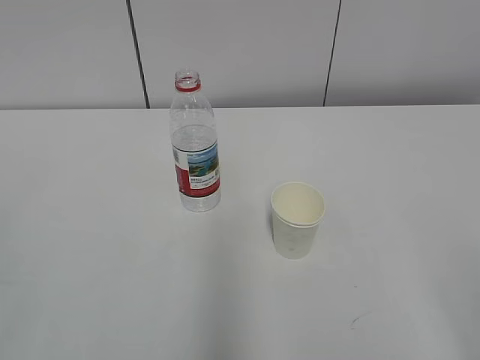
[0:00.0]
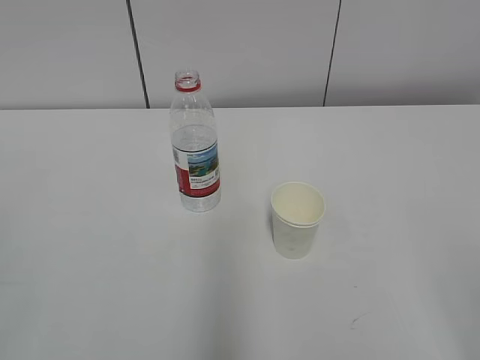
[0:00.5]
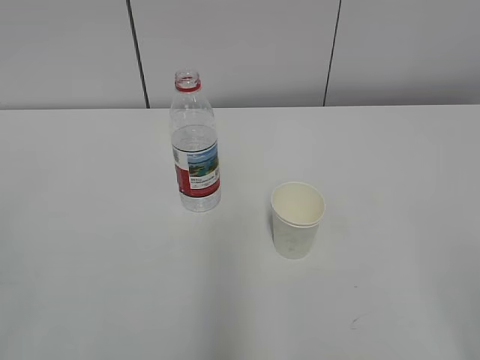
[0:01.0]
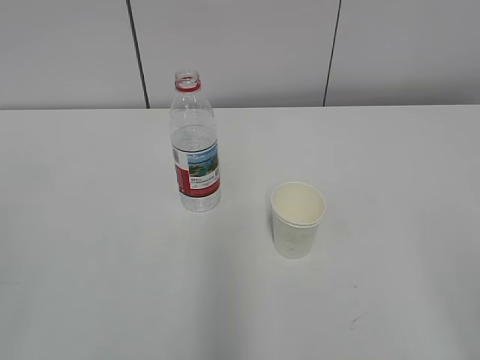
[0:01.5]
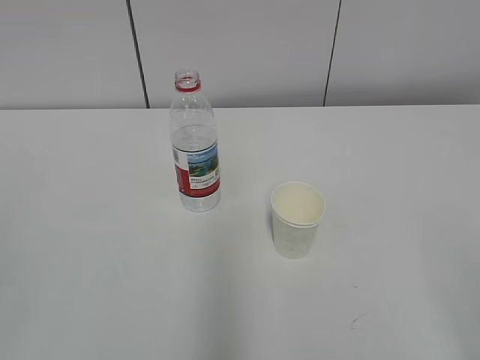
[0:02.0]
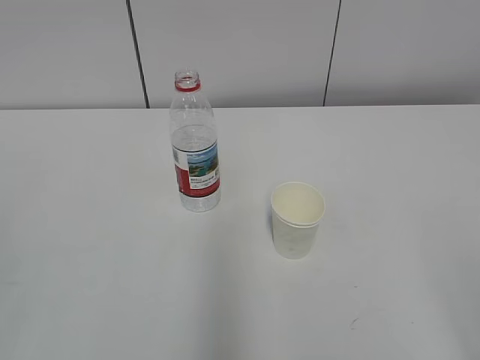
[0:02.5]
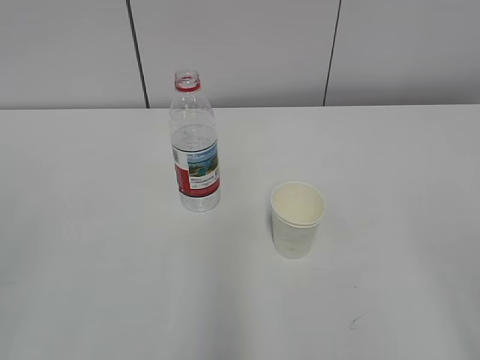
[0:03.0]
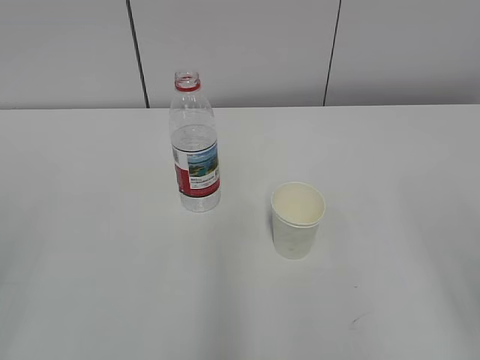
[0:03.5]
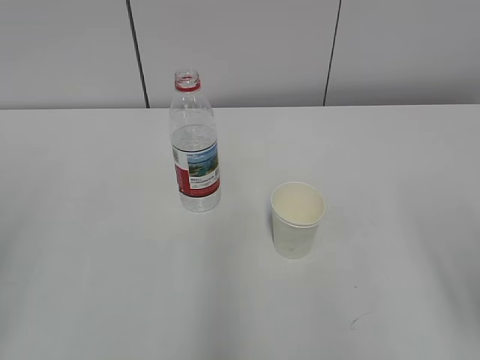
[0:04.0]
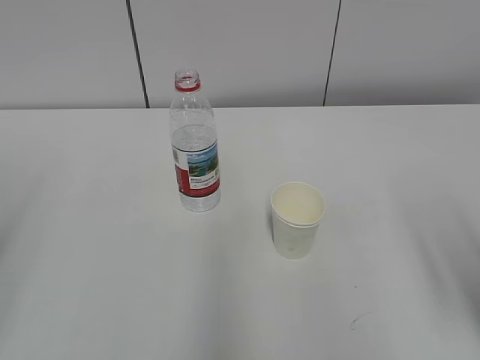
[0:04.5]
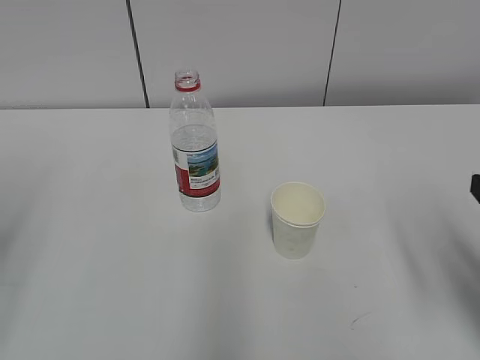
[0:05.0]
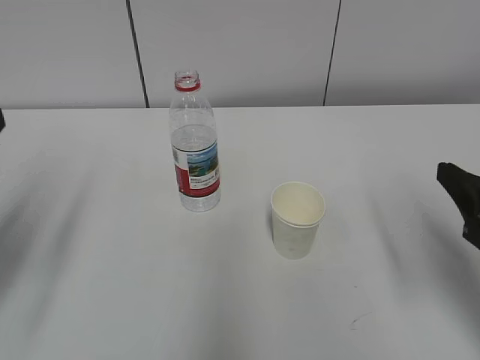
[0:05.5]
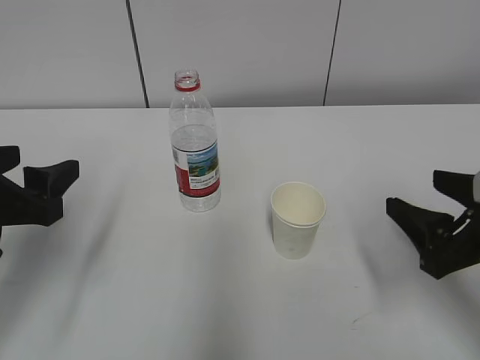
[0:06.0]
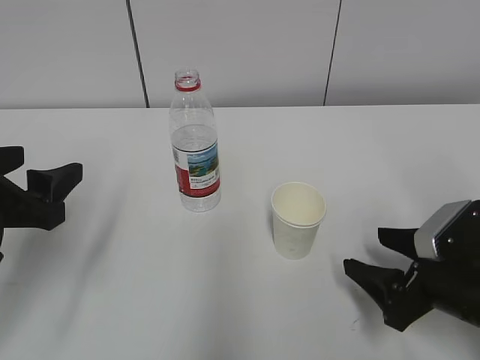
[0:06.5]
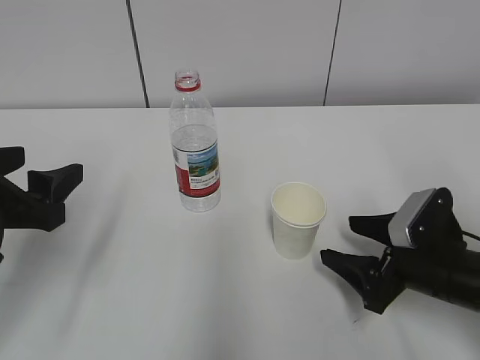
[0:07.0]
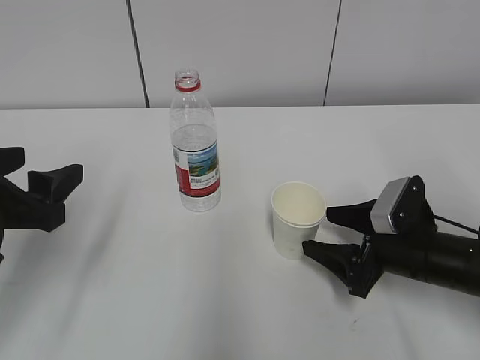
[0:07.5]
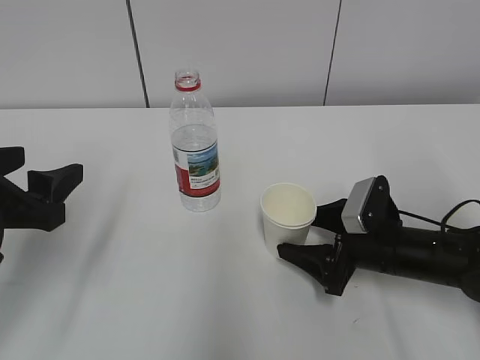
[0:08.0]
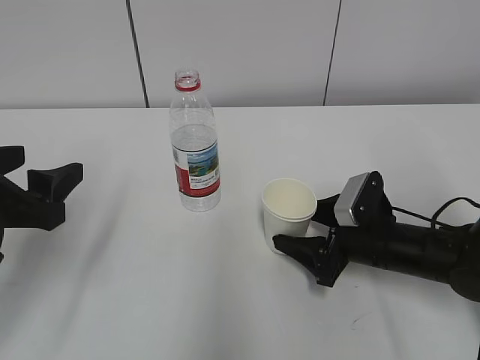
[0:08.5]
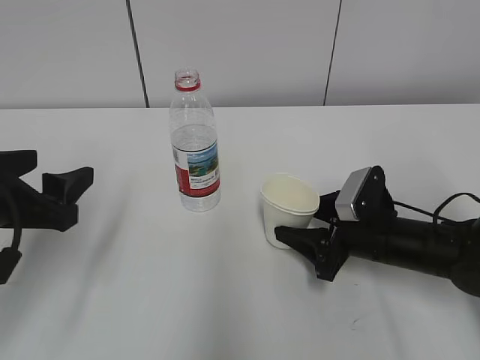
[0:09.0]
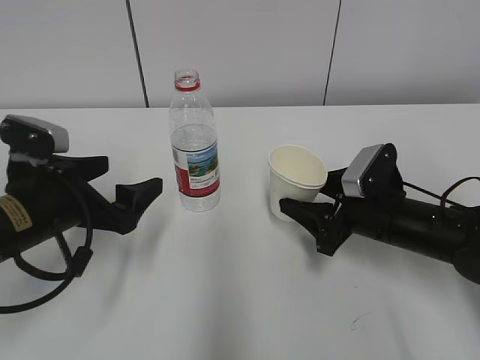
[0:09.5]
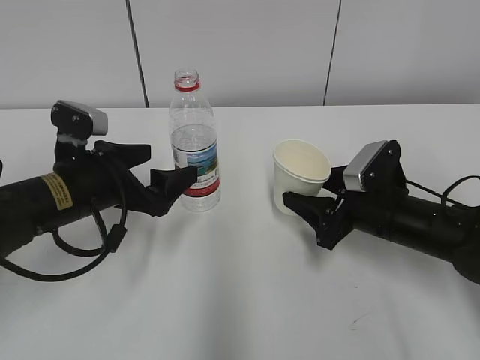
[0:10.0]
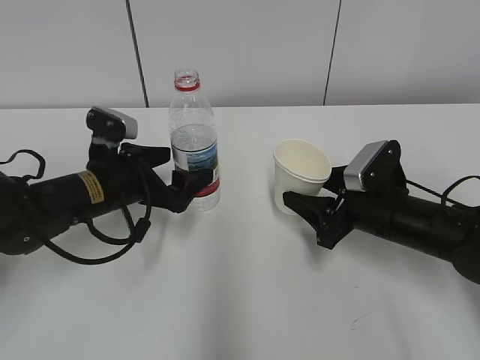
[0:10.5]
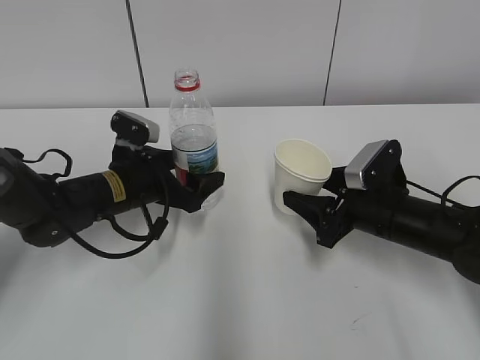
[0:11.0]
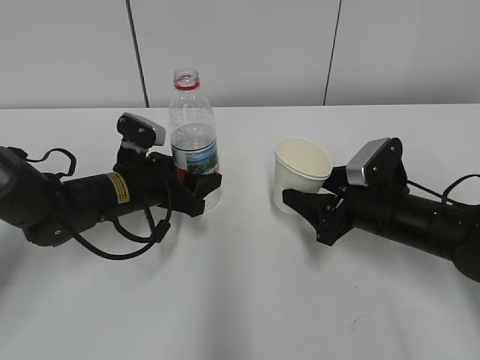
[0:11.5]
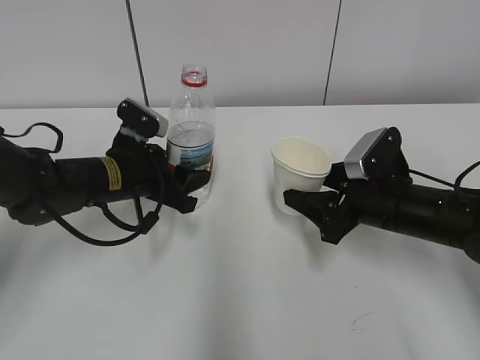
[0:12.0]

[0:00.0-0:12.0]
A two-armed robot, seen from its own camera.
Step, 0:00.0 to 0:07.0: Grab the paper cup with the right hand.
Step, 0:07.5 to 0:09.5: Grab the water bottle with the left hand.
0:04.0 to 0:06.0: The left gripper heads forward, downward and to the right, covering approximately 15 cm. Meanwhile the right gripper moves forward and downward, some 15 cm.
0:06.0 to 0:08.0: The right gripper goes approximately 15 cm downward, forward and to the left.
0:08.0 to 0:10.0: The left gripper travels forward, to the right and downward by roughly 15 cm, and opens; the right gripper closes up.
0:10.0 to 0:12.0: The left gripper shifts about 5 cm forward, and closes.

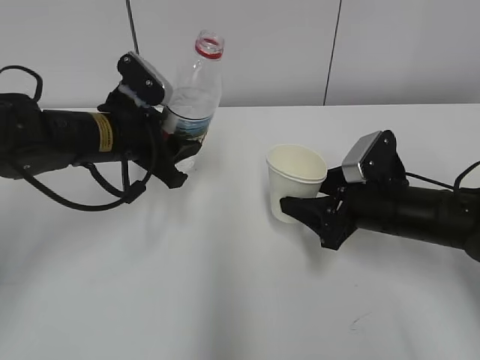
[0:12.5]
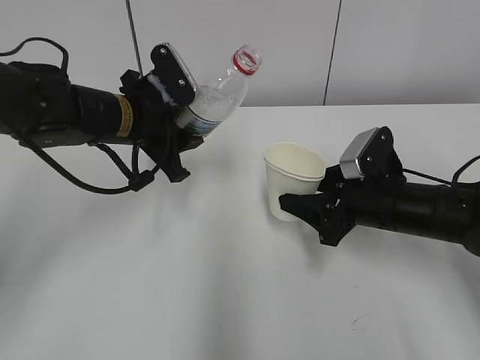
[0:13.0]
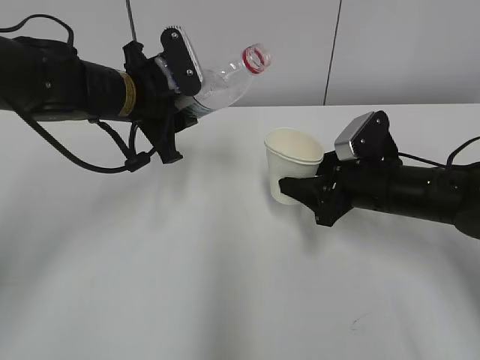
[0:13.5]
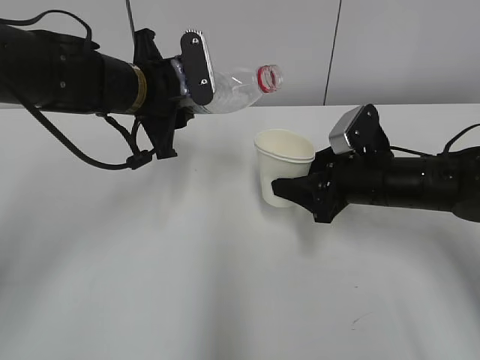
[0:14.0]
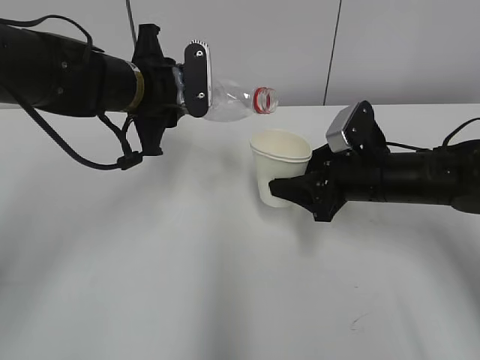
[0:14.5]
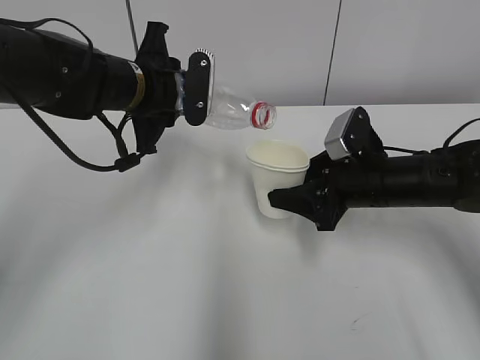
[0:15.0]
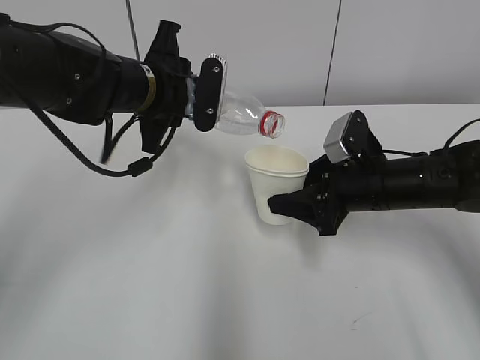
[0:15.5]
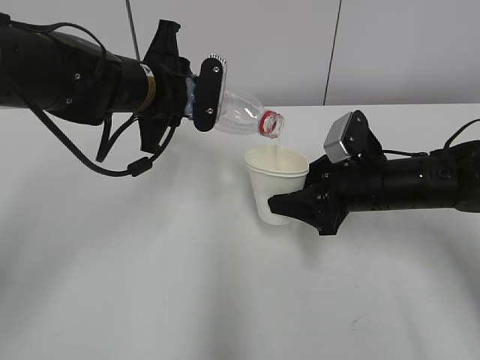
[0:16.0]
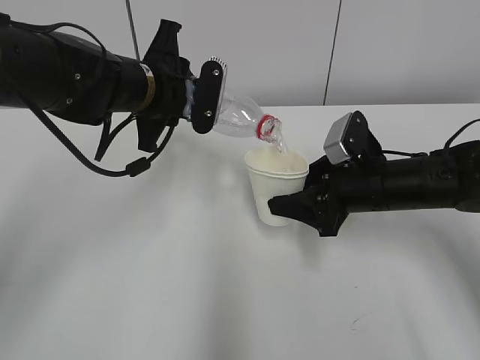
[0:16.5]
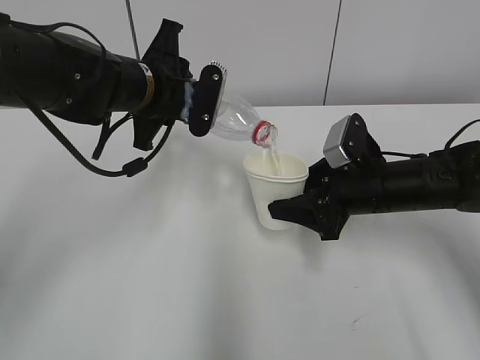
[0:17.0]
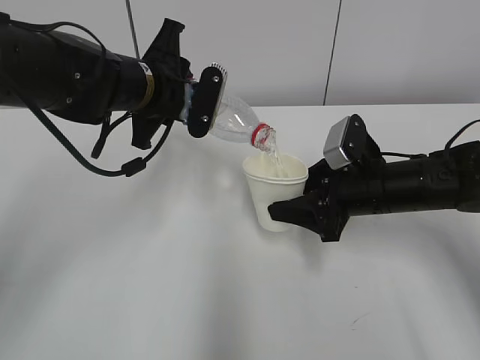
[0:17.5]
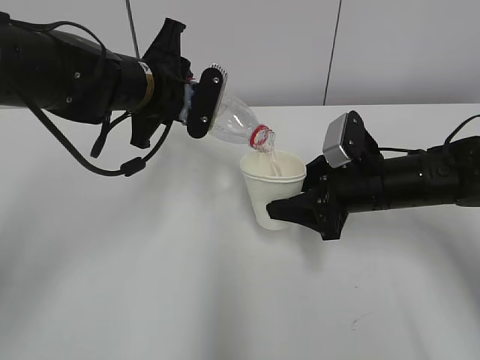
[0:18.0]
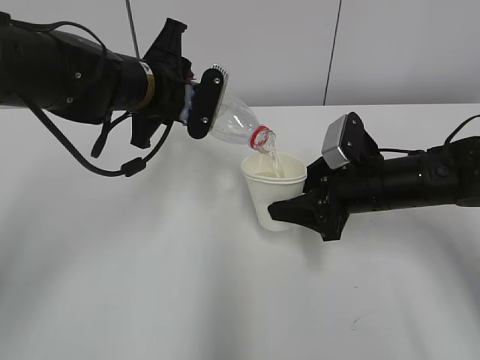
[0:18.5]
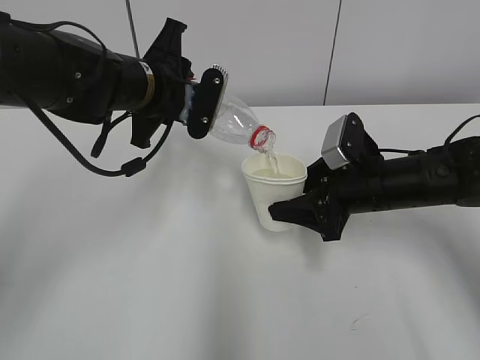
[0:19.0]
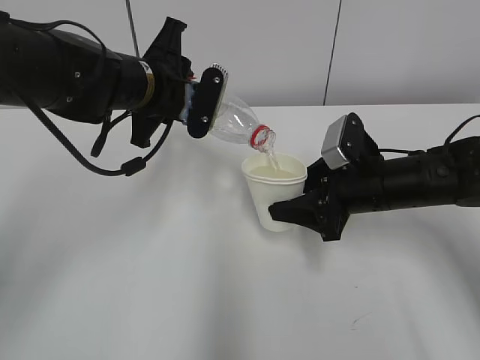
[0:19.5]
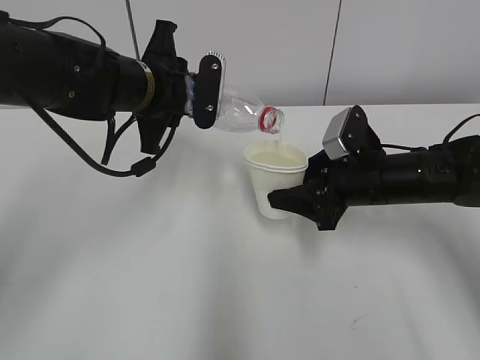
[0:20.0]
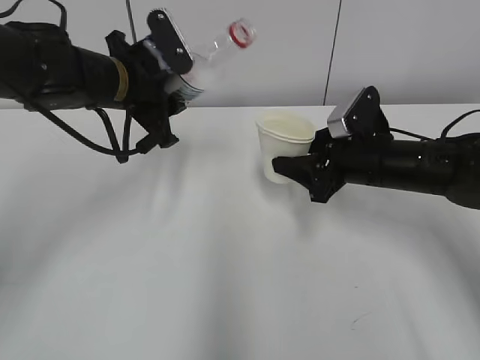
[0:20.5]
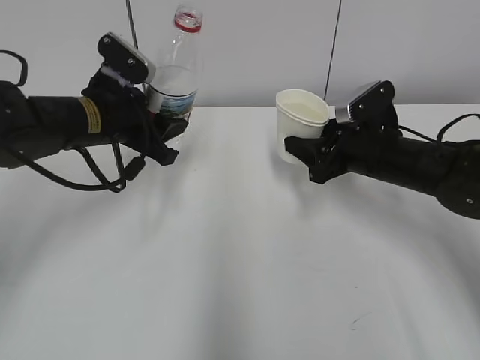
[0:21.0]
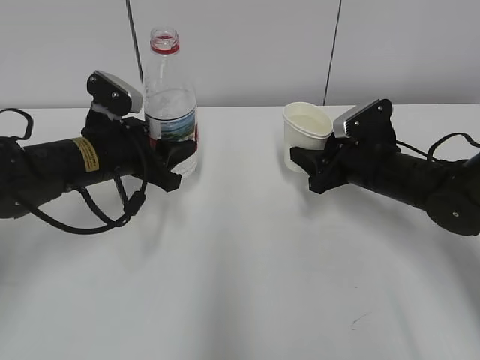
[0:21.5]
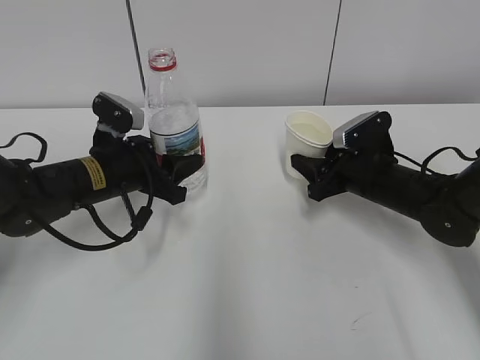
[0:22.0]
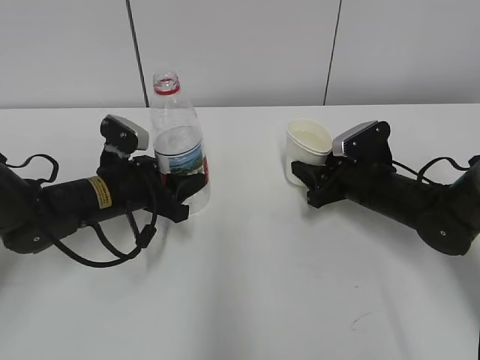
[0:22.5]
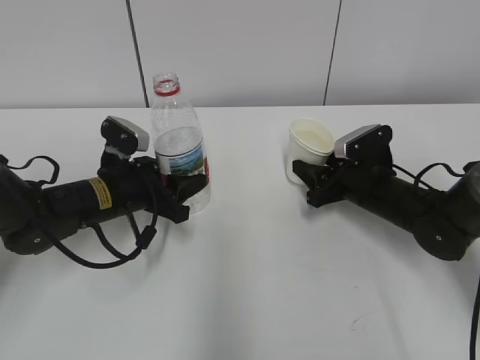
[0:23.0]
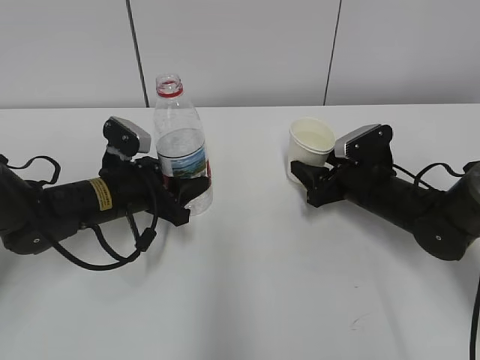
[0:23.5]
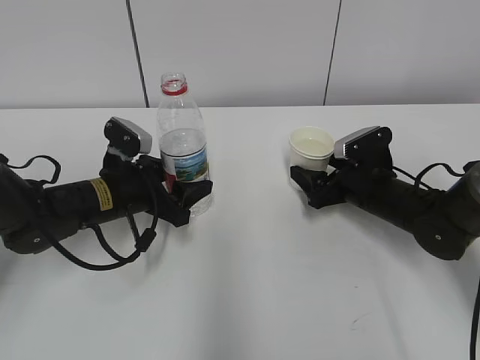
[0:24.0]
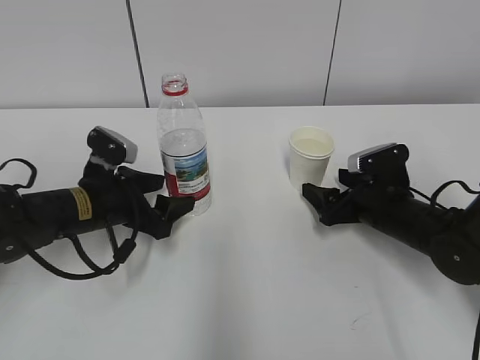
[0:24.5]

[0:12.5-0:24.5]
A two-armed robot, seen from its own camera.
Step, 0:13.0 to 0:16.5: Fill water with the right hand.
Step, 0:13.0 to 0:16.5: Pour water with the left hand.
Step, 0:17.0 to 0:17.5: Collect water with the left hand.
Step, 0:18.0 to 0:19.5: Place the paper cup with the right hand.
Step, 0:18.0 to 0:19.5: Place the water bottle with the left hand.
0:12.5 to 0:14.5: The left gripper goes some 5 cm upward.
0:14.5 to 0:16.5: The grippers stay close to where they were, moving slightly.
0:16.5 to 0:18.5: There are only small adjustments of the grippers.
0:20.5 to 0:22.5: The right gripper travels downward by about 5 cm; the left gripper shifts about 15 cm downward.
0:22.5 to 0:24.5: The left gripper opens up, while the right gripper opens.

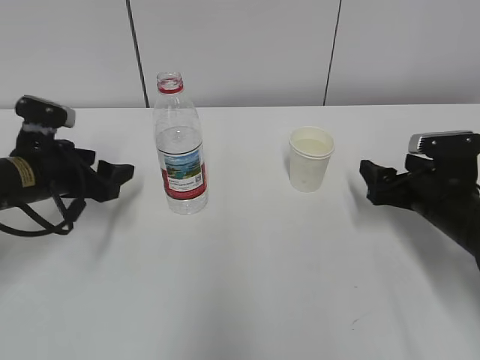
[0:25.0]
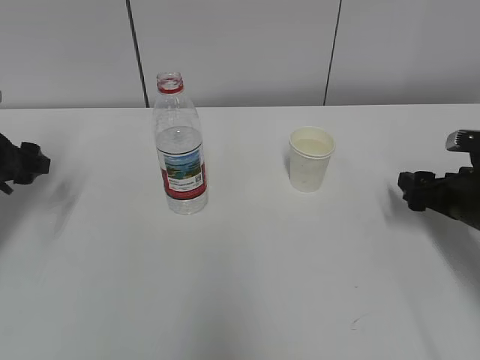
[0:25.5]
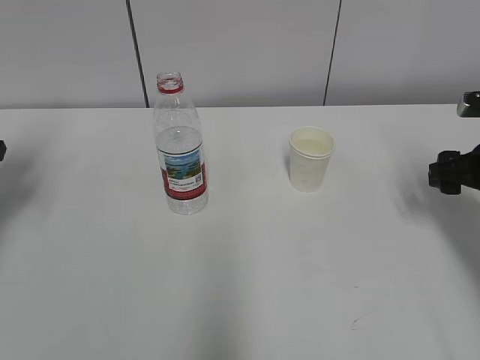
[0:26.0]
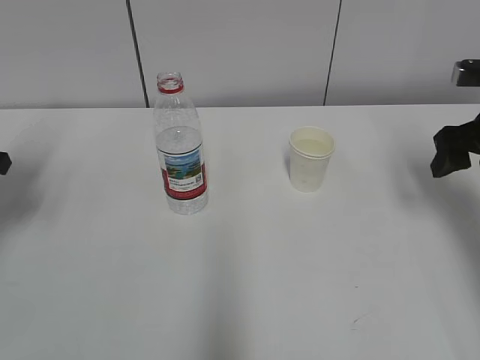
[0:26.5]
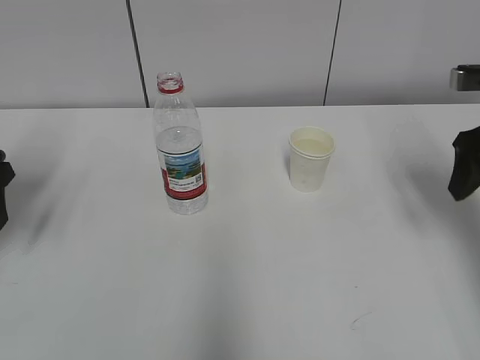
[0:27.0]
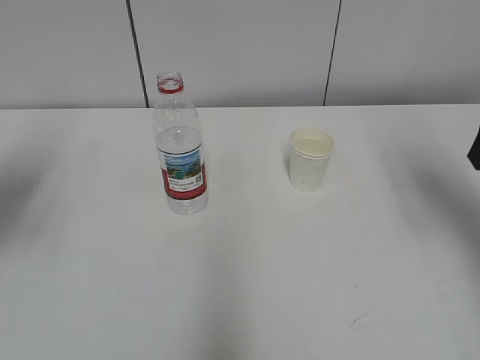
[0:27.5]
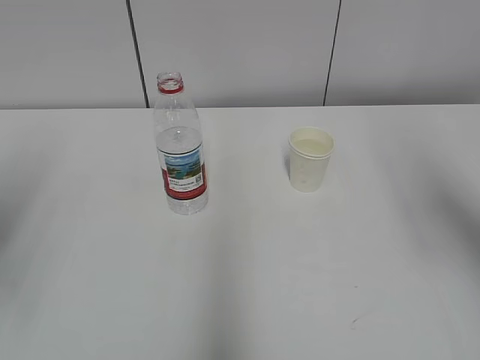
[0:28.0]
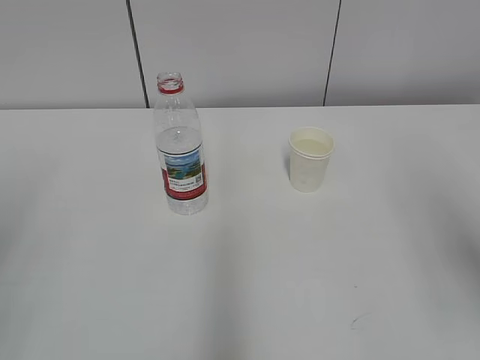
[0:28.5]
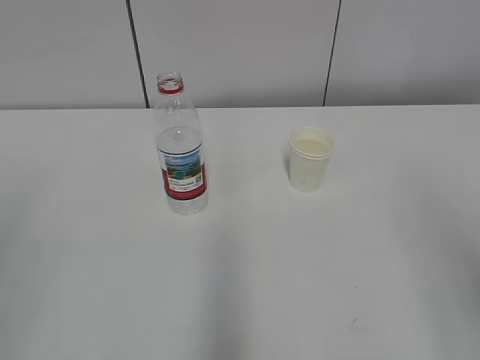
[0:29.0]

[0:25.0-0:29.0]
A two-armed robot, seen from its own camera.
0:25.0 to 0:27.0: The left gripper shifts about 10 cm to the left and upward. Meanwhile the right gripper is displaced upward by about 15 cm.
0:27.0 to 0:29.0: Both grippers move backward, some 25 cm.
